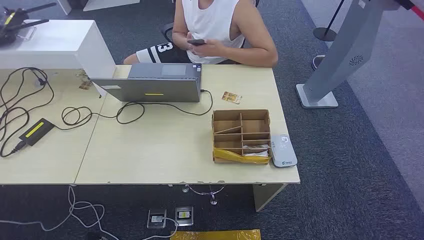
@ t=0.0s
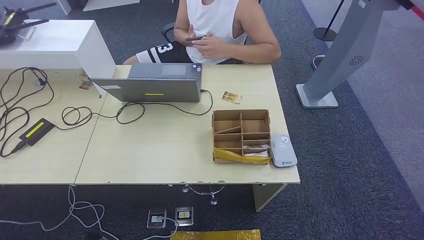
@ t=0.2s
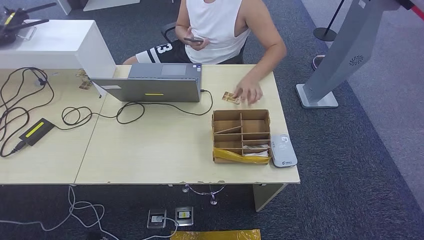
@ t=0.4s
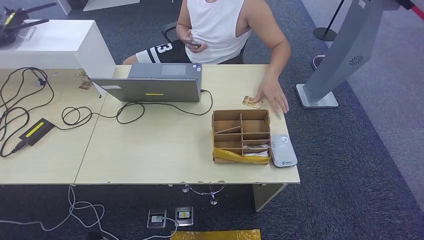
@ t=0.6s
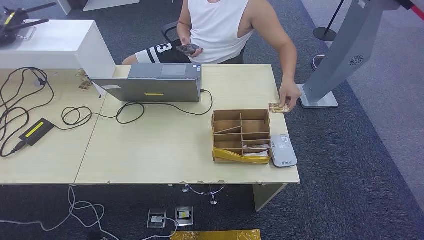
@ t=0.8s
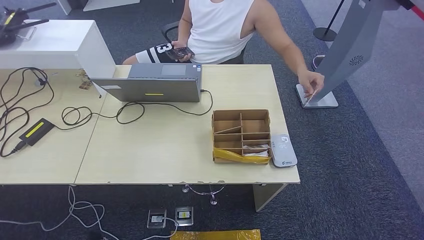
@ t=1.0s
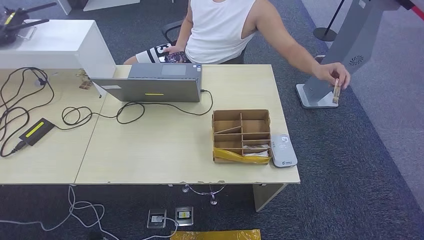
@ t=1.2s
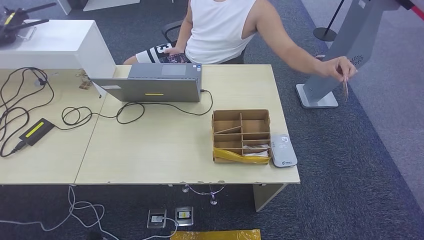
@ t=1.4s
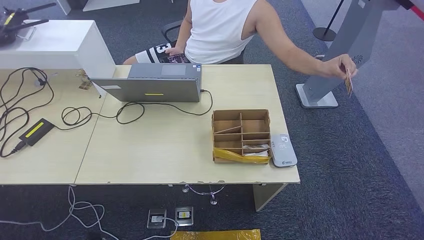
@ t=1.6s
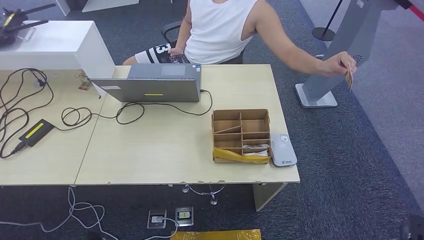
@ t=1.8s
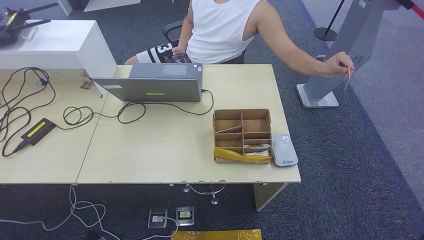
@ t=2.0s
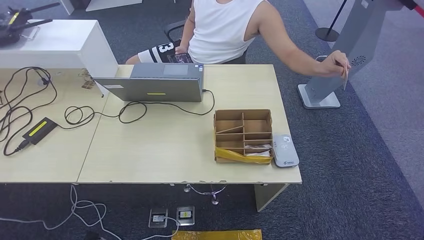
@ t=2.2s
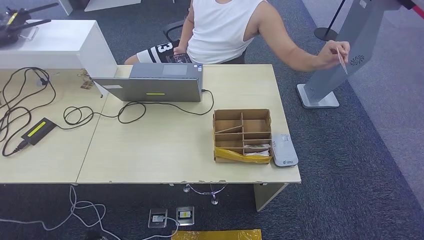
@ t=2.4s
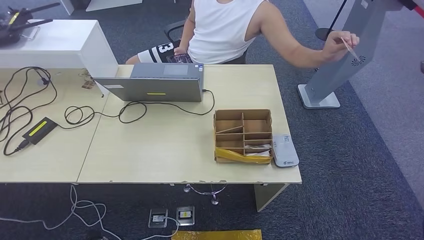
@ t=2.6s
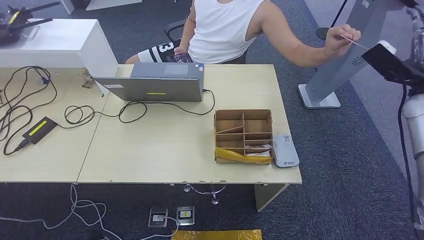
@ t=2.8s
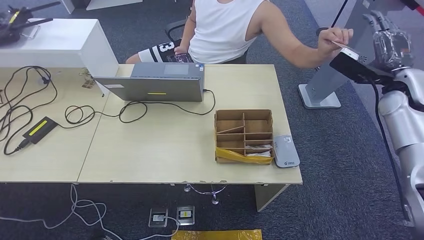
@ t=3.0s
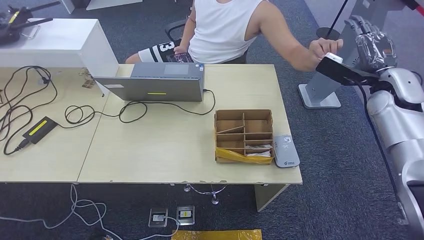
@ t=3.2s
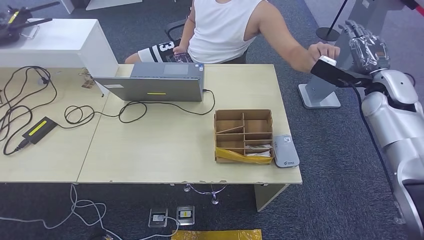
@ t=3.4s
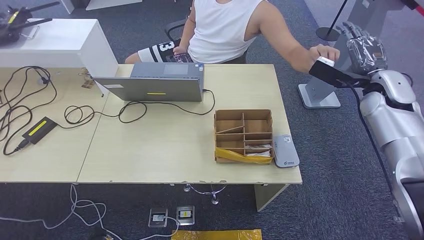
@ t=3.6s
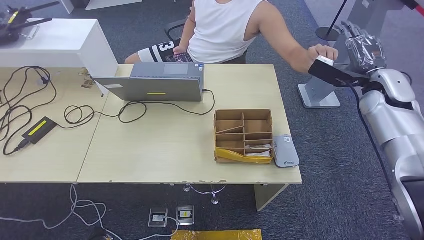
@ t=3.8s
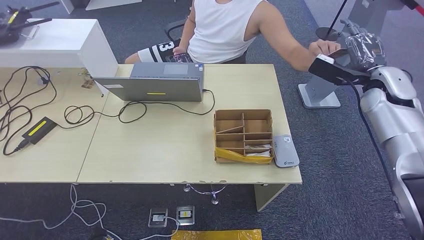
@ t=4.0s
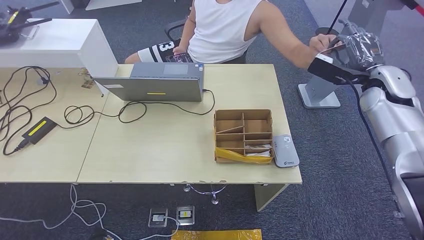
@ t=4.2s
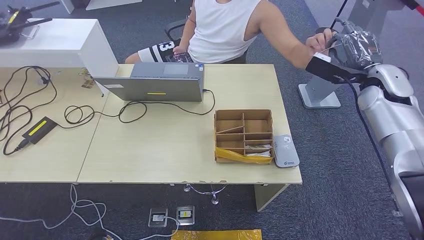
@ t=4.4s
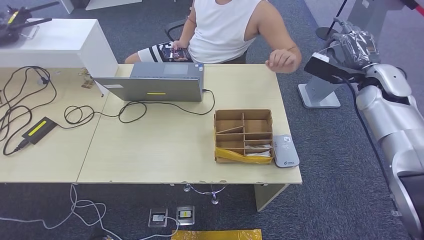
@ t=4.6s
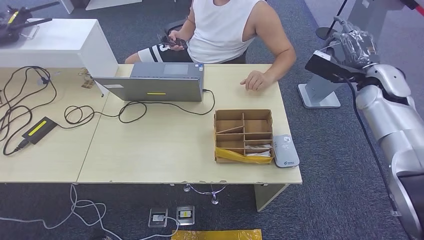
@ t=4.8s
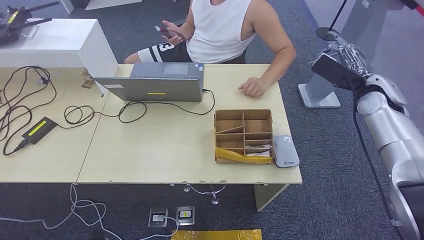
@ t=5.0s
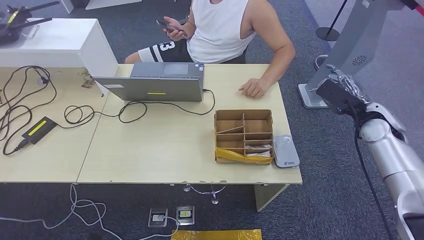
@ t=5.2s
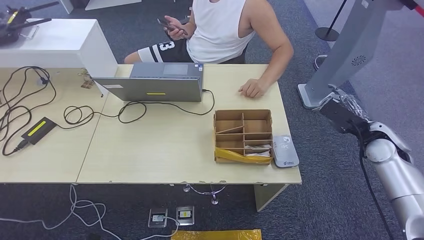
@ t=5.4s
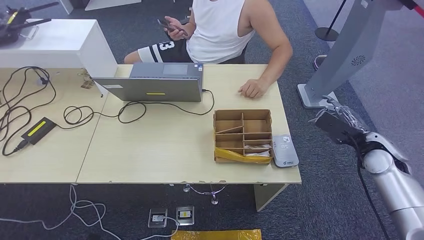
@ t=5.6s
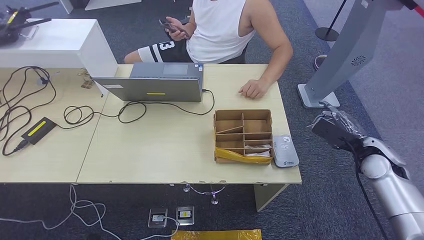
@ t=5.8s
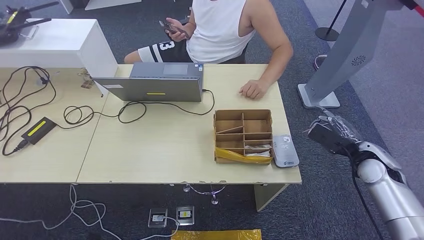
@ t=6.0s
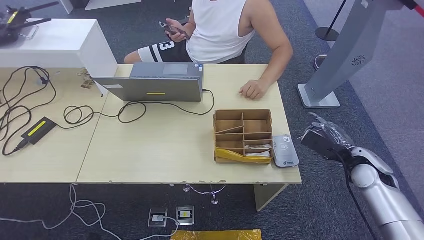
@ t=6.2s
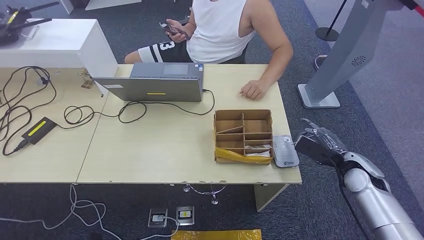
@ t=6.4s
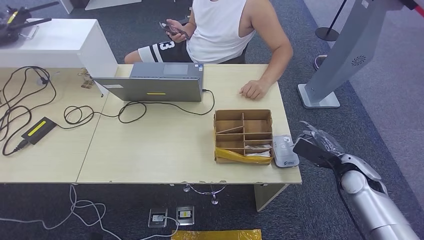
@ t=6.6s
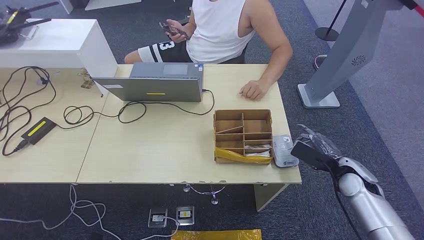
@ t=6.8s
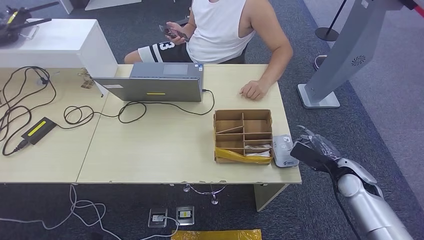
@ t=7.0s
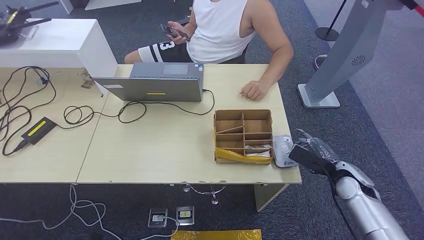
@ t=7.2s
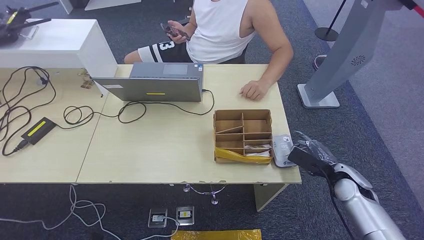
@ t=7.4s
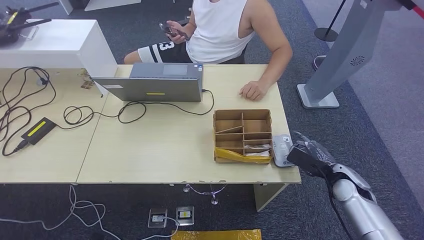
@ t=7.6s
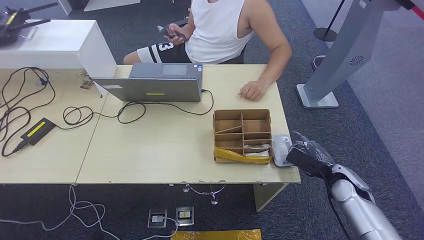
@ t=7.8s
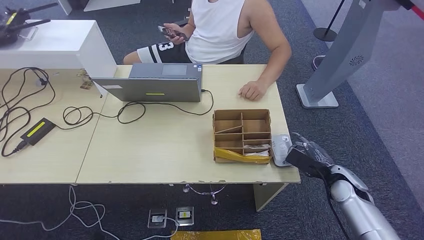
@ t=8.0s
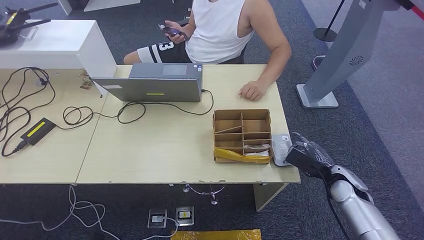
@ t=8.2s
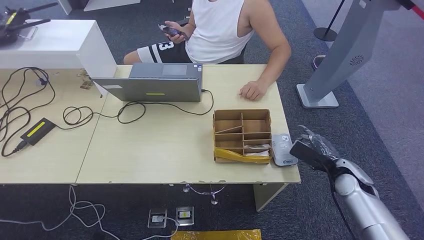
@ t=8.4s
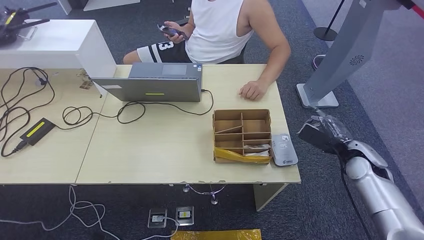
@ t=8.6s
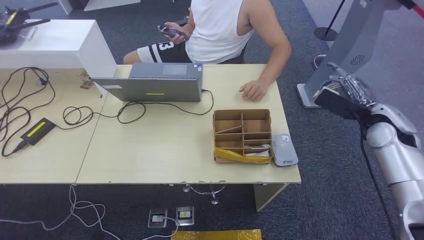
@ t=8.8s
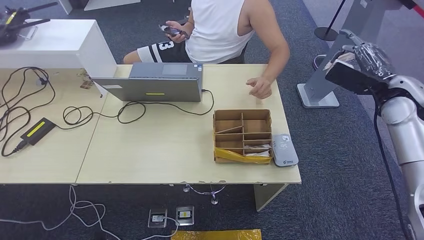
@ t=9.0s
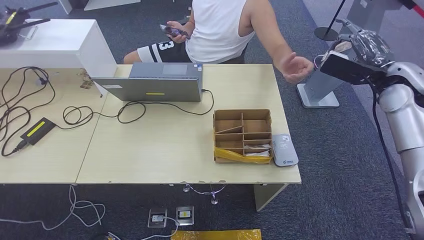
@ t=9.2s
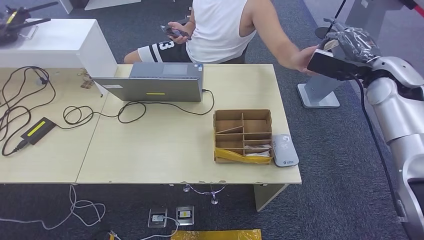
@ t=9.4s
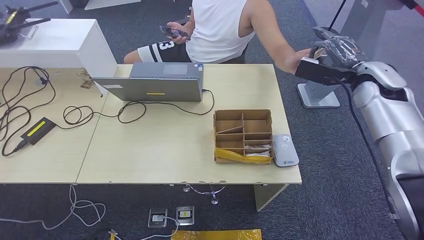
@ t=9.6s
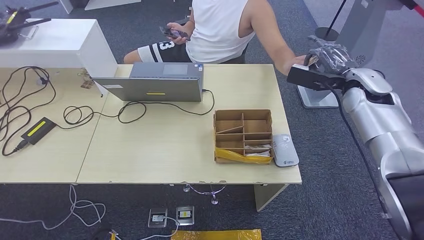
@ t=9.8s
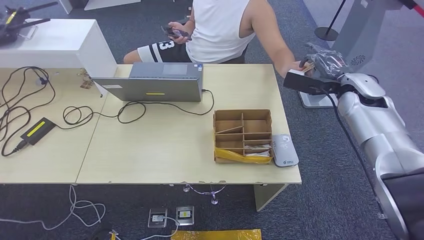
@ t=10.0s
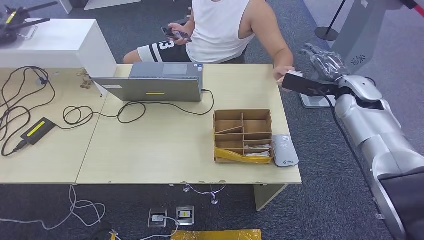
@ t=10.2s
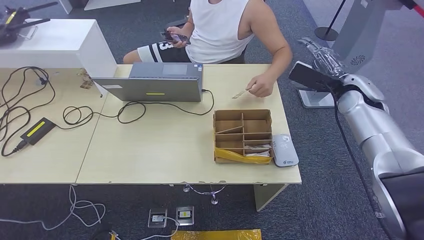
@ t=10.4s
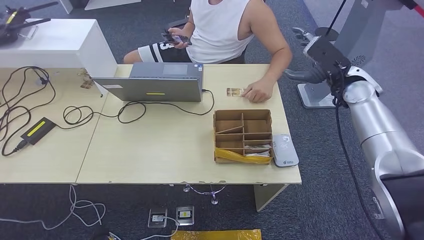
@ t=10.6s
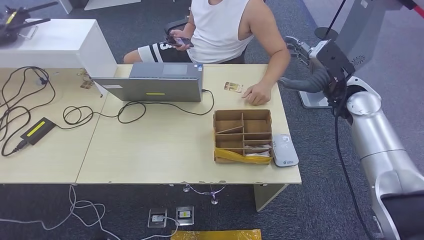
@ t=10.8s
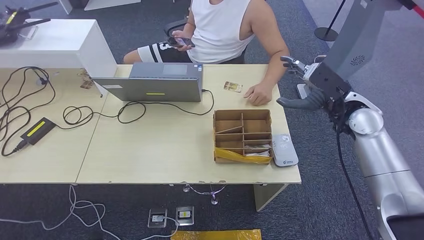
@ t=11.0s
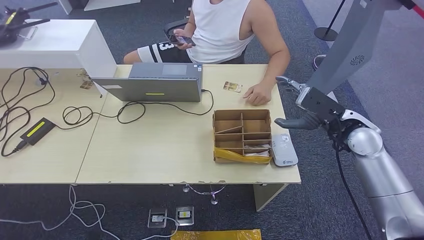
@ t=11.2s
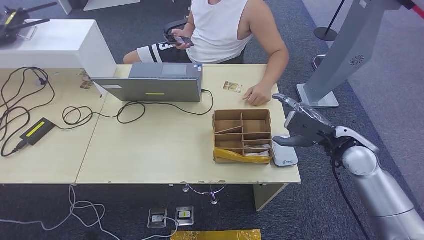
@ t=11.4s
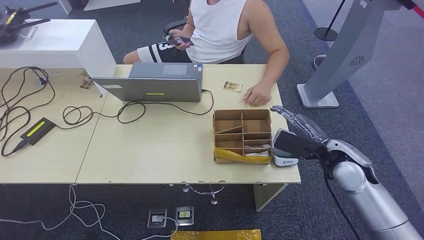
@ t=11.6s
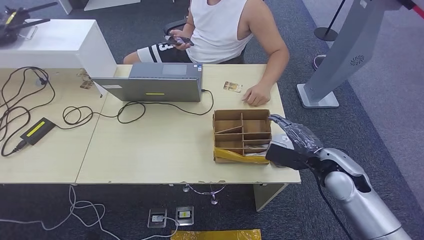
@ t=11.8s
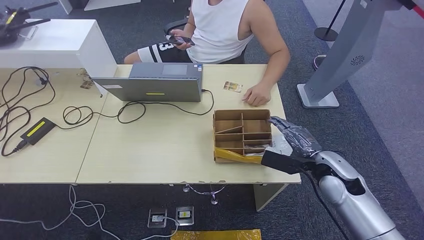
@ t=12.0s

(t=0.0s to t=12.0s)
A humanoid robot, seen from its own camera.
Step, t=0.0s - t=4.8s: Take the ID card from the person's hand.
Step, t=5.0s - t=7.4s: Place the ID card on the card reader.
Step, t=7.6s - t=10.0s: Hand the ID card to the person.
t=1.6s - t=3.0s: The right hand travels upward and forward by roughly 60 cm.
t=3.0s - t=4.4s: The hands move only a little.
t=4.4s - t=6.0s: The right hand is displaced downward and backward by approximately 20 cm.
t=6.0s - t=7.6s: The right hand heads downward, covering roughly 10 cm.
t=7.6s - t=9.0s: The right hand shifts approximately 25 cm upward.
t=9.0s - t=10.4s: The right hand travels to the left by some 5 cm.
t=10.4s - t=12.0s: The right hand goes about 20 cm backward and downward.

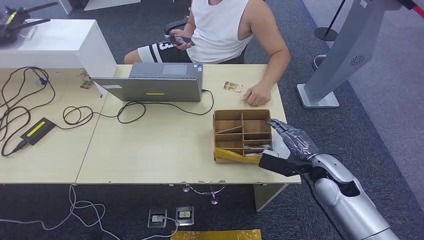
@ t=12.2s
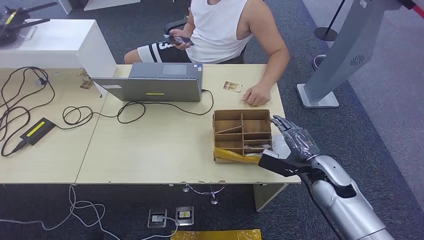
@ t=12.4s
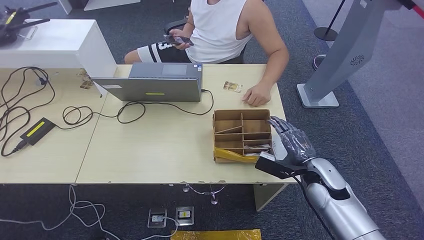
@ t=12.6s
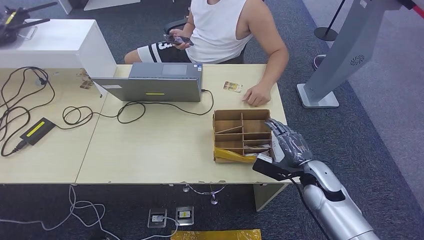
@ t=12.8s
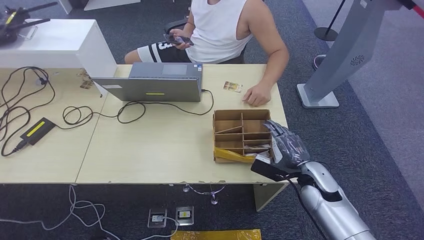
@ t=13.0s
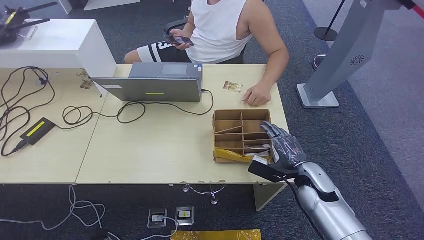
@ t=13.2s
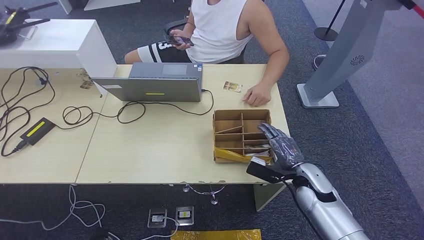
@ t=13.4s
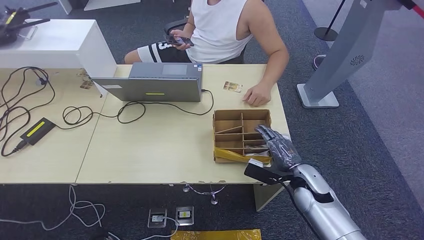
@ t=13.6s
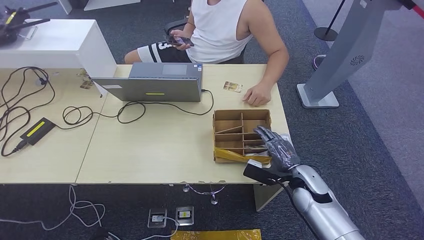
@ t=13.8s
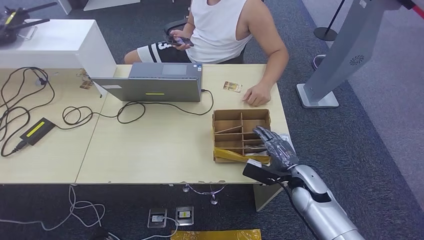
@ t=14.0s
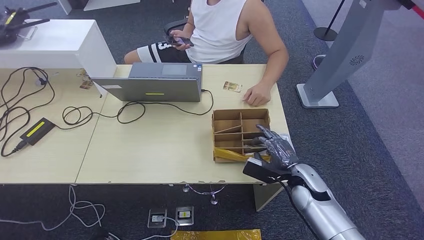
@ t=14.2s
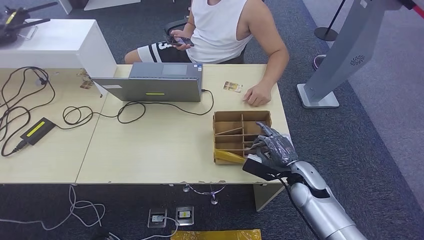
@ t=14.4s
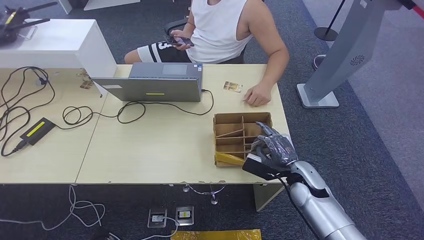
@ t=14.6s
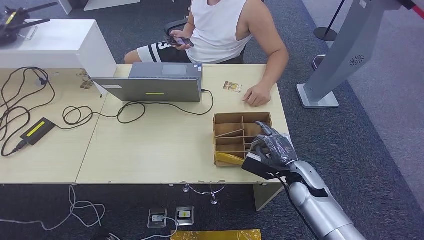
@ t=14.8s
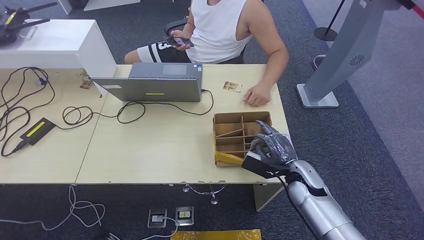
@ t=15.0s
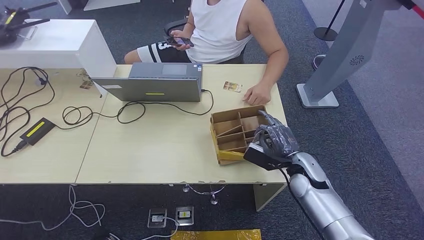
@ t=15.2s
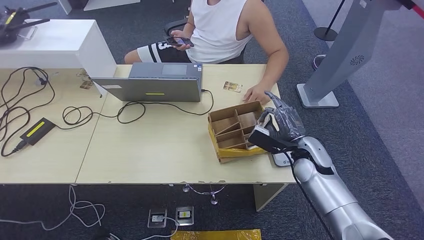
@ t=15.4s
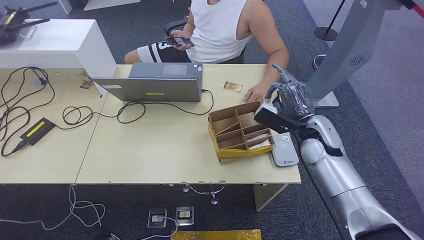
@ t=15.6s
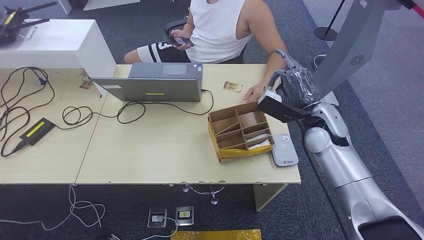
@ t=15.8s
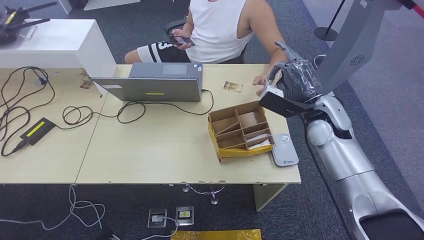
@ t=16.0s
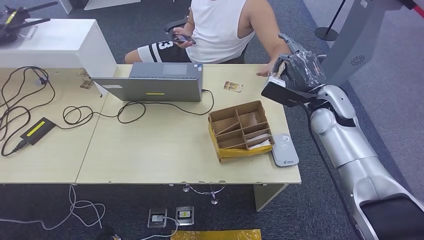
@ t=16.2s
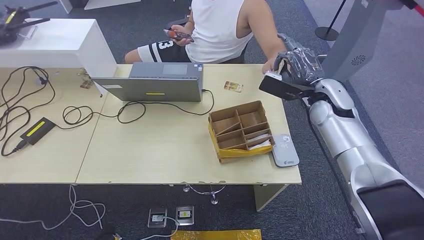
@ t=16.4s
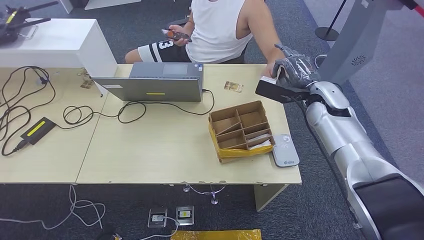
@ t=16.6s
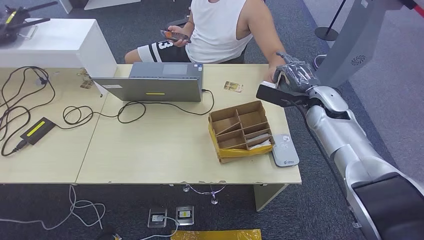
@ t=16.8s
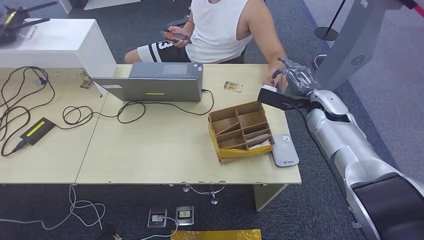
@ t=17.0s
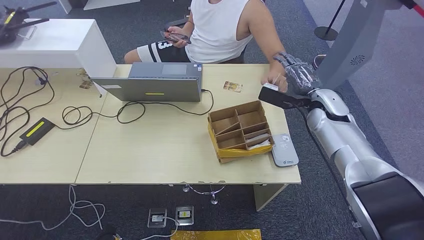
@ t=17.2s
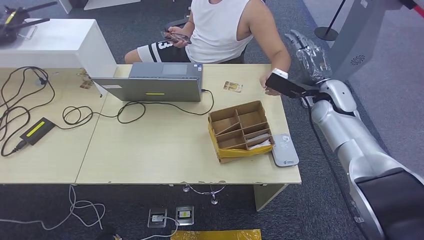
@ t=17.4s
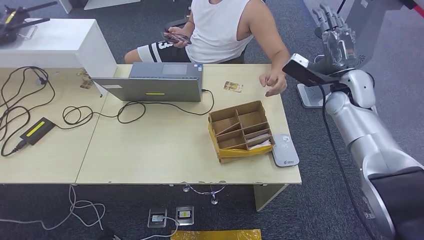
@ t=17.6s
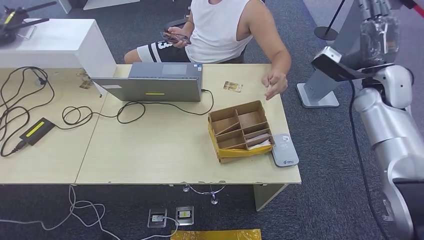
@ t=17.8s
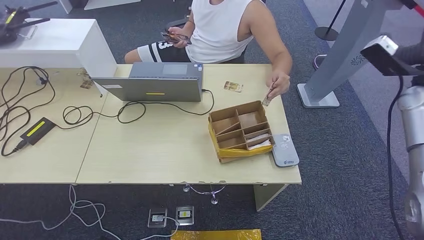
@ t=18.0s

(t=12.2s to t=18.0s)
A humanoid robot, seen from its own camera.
Step, t=12.2s - t=15.4s: Pick up the room key from the key card box.
Step, t=15.8s - t=18.0s: Hand the room key to the person.
t=12.2s - t=13.6s: The right hand heads downward, covering roughly 5 cm.
t=13.6s - t=15.0s: The hands stay close to where they were, moving slightly.
t=15.0s - t=16.6s: The right hand heads upward and forward, covering about 20 cm.
t=16.6s - t=18.0s: The right hand shifts about 20 cm to the right and upward.
